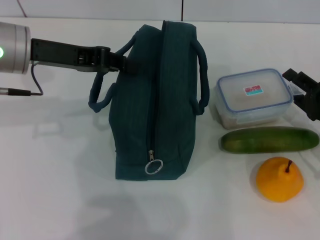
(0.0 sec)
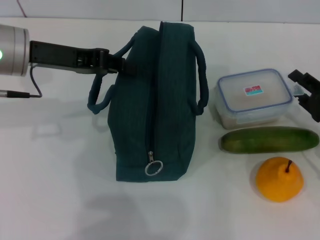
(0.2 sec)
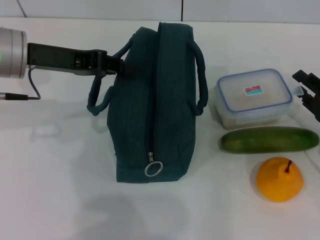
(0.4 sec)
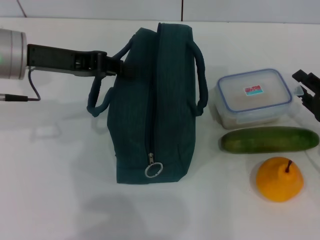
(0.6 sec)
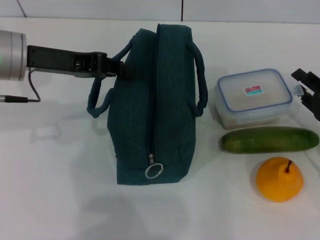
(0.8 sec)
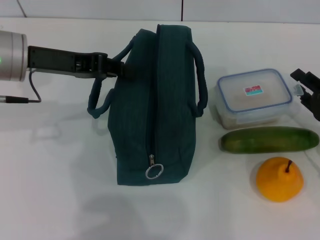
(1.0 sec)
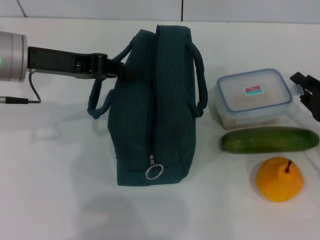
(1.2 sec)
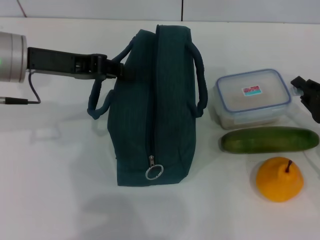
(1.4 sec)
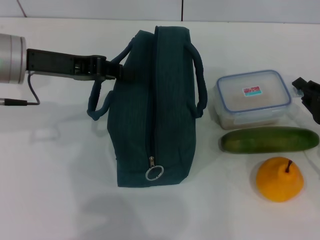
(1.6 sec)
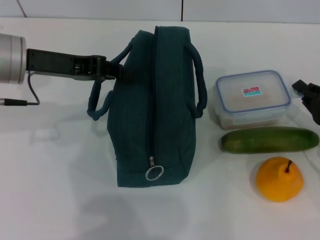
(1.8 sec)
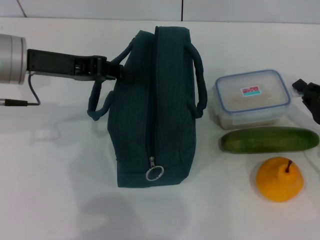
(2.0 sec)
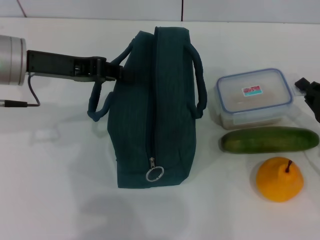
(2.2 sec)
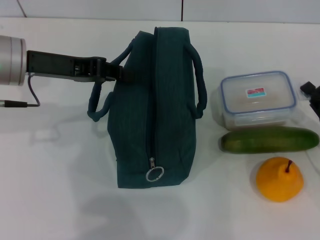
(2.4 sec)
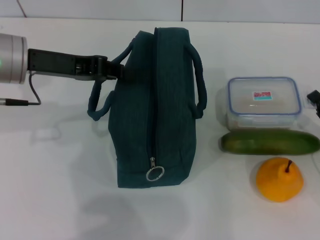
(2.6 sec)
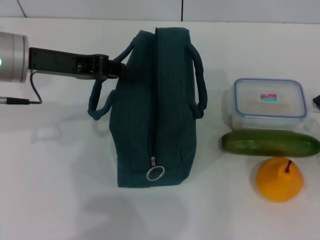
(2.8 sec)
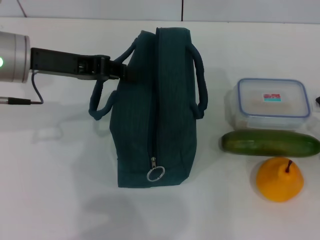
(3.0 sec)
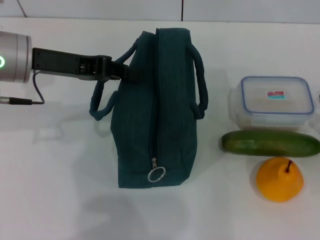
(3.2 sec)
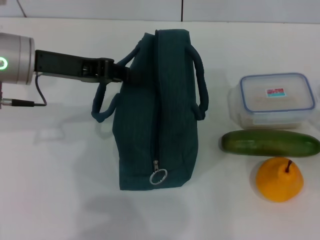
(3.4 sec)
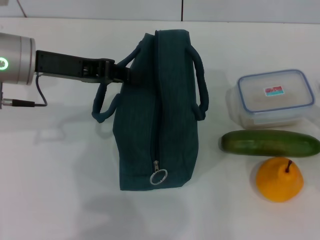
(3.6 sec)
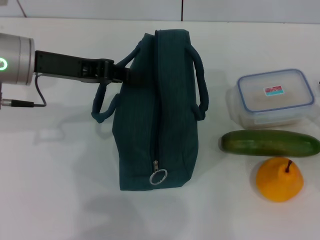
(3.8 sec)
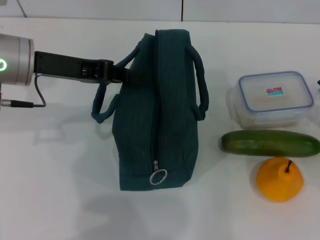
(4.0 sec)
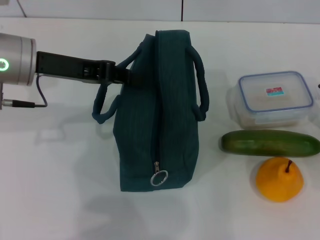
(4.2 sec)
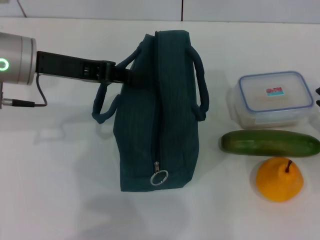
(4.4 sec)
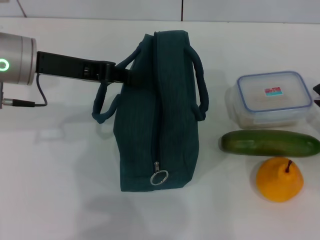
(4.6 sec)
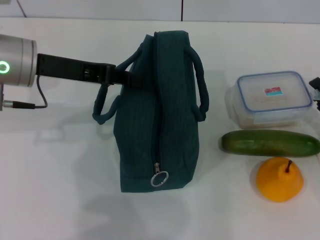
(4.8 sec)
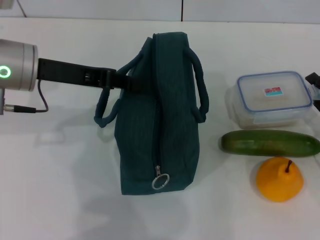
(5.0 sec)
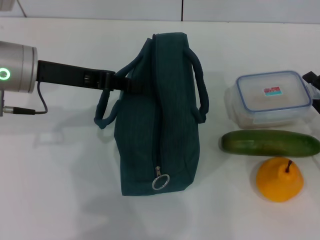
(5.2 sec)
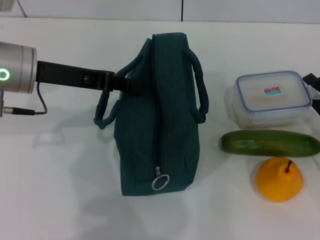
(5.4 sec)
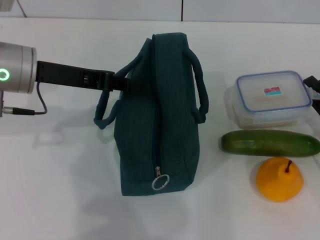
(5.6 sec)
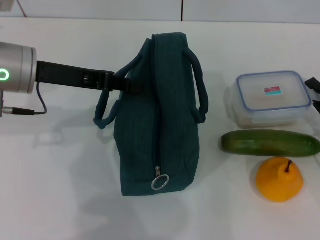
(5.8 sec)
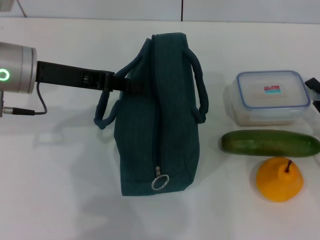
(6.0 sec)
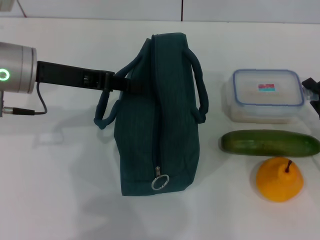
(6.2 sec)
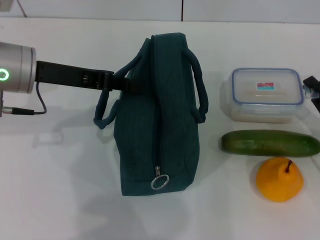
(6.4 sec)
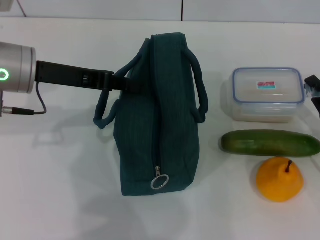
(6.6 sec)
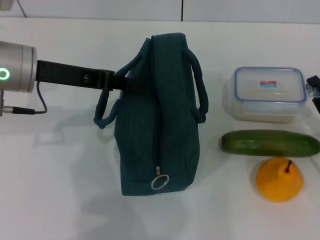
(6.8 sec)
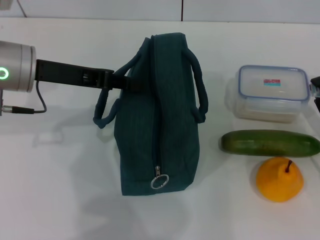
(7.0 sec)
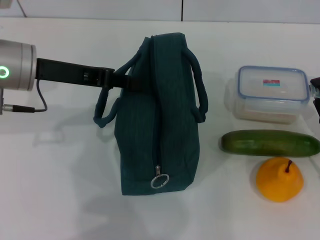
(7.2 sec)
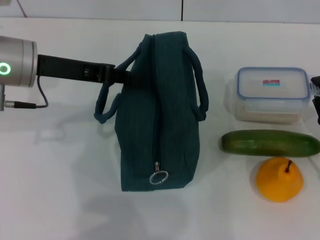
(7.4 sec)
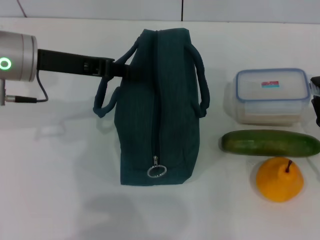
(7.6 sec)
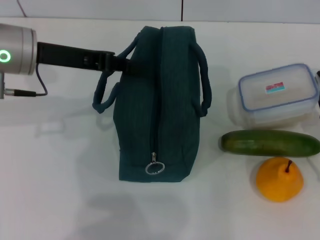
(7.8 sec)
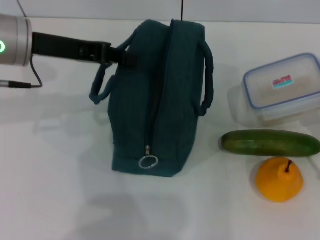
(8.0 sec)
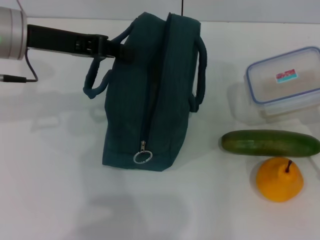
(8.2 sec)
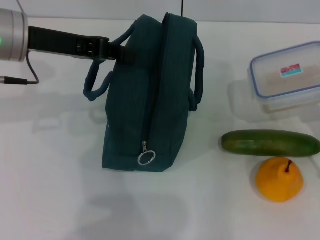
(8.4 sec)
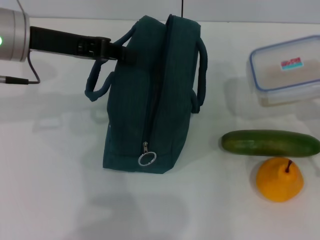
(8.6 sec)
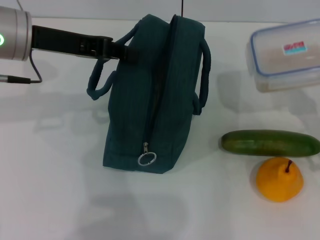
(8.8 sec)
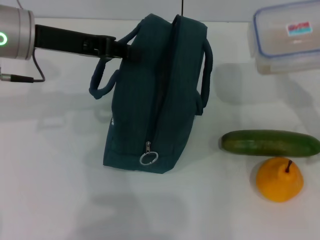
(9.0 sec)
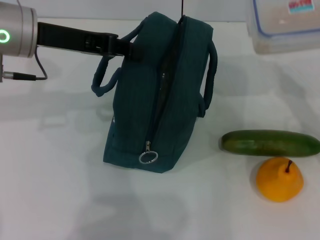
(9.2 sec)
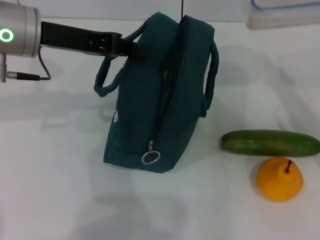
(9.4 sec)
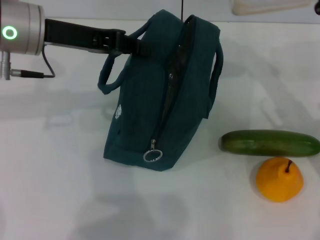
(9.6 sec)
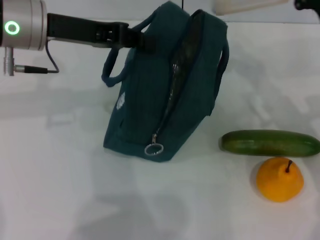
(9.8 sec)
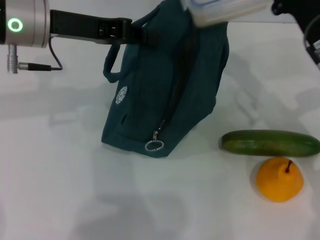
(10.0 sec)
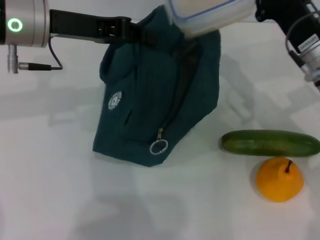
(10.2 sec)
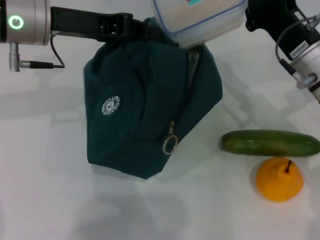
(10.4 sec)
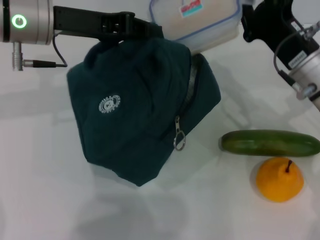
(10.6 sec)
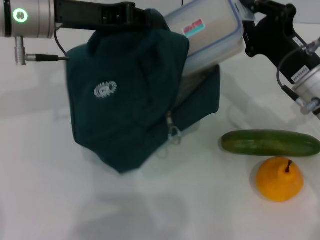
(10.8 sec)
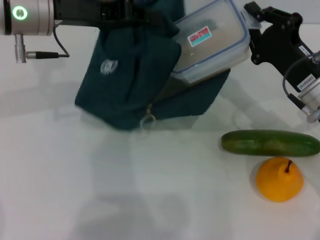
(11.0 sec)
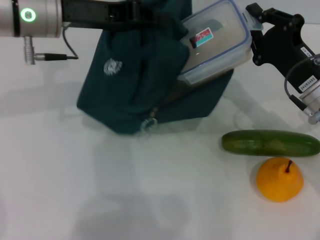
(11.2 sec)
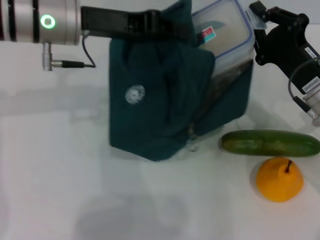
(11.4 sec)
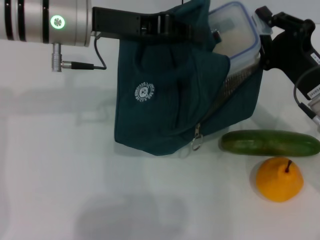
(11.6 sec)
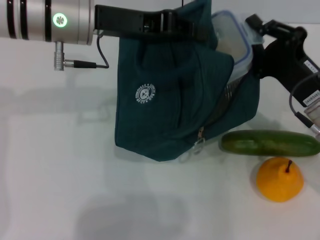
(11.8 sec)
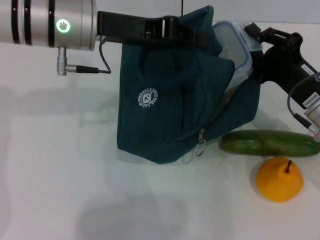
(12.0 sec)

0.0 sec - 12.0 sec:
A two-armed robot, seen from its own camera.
Step, 0.0 sec - 7.4 sec: Pick up the lunch box with your right hand.
0.0 sec - 1.6 sec: Both grippers stay about where they are.
1.6 sec - 3.0 sec: The grippers make only small movements.
3.0 sec - 4.4 sec: The right gripper opens up.
4.4 sec - 6.0 sec: There are only small adjustments of the grippers.
7.6 sec - 9.0 sec: The right gripper shifts roughly 5 cm upward.
9.0 sec - 10.4 sec: The right gripper goes roughly 10 cm to the left and forward.
10.4 sec - 12.0 sec: The left gripper moves some 5 cm; the right gripper changes place by roughly 5 cm.

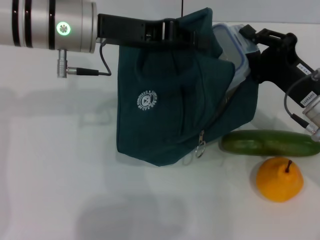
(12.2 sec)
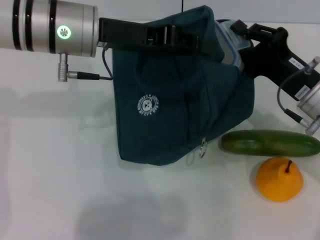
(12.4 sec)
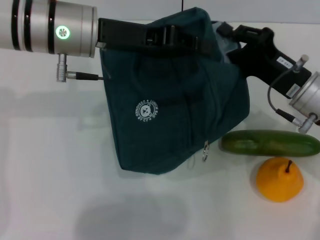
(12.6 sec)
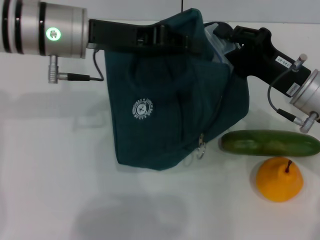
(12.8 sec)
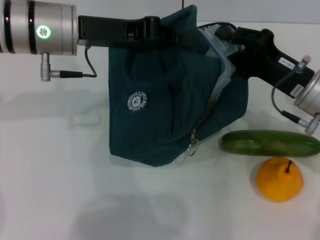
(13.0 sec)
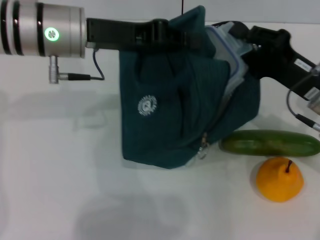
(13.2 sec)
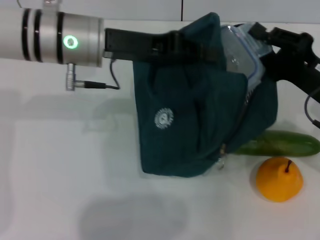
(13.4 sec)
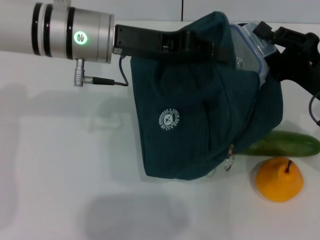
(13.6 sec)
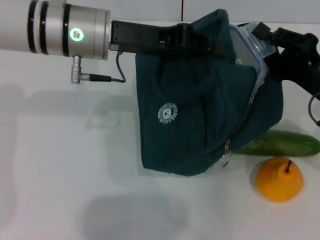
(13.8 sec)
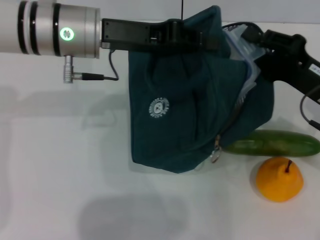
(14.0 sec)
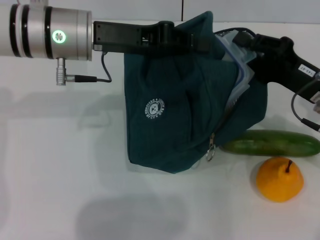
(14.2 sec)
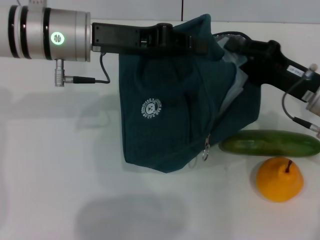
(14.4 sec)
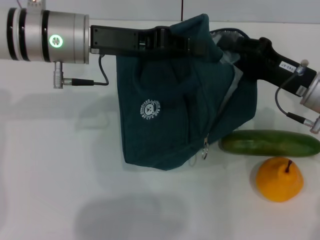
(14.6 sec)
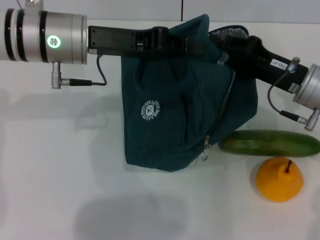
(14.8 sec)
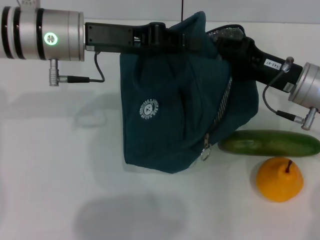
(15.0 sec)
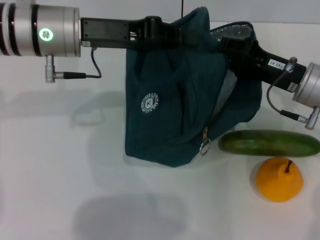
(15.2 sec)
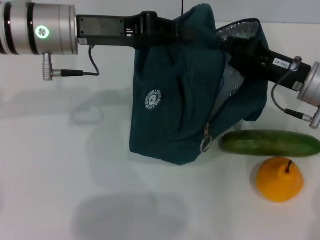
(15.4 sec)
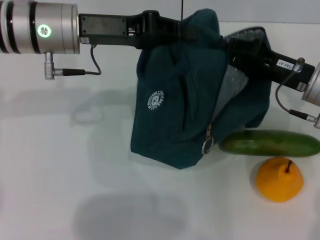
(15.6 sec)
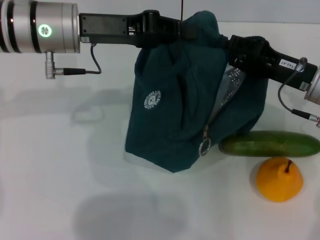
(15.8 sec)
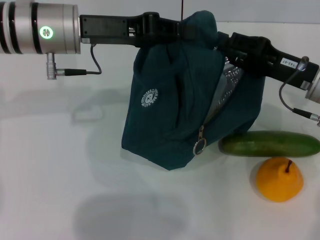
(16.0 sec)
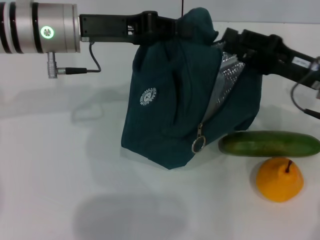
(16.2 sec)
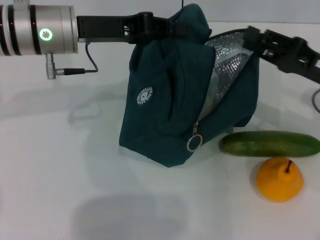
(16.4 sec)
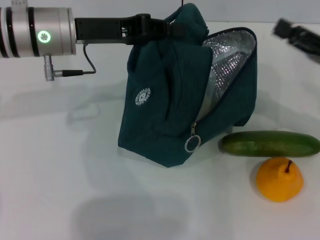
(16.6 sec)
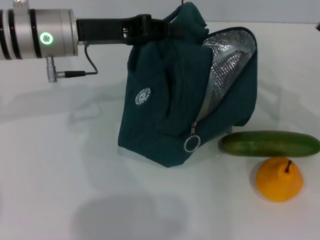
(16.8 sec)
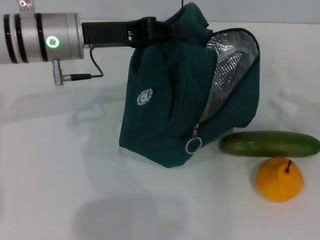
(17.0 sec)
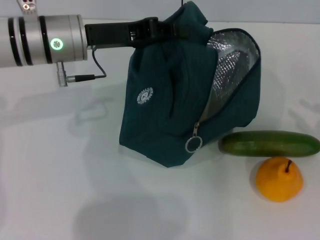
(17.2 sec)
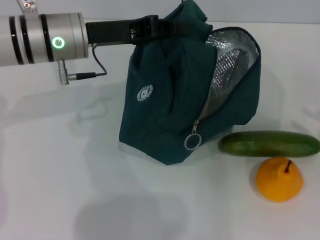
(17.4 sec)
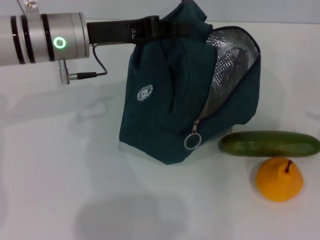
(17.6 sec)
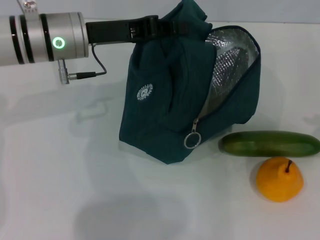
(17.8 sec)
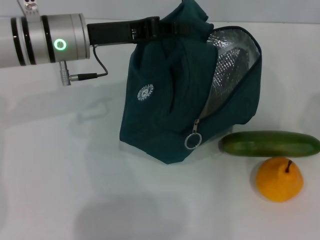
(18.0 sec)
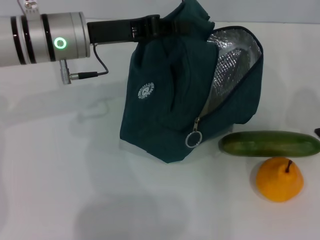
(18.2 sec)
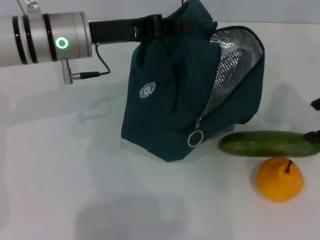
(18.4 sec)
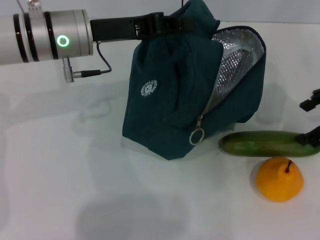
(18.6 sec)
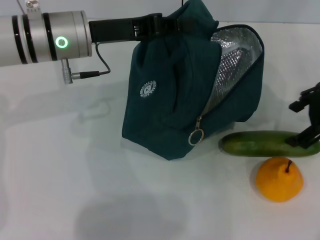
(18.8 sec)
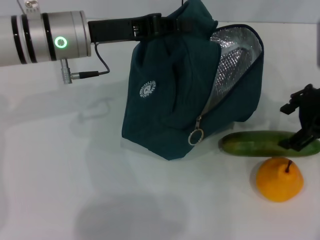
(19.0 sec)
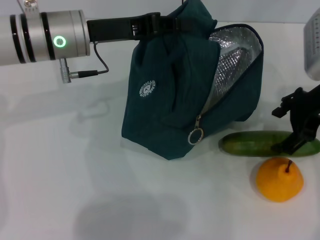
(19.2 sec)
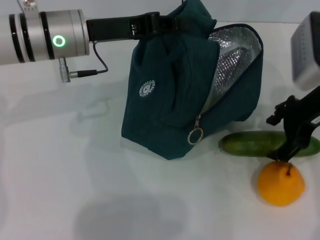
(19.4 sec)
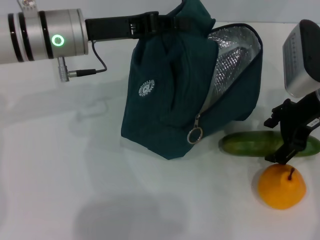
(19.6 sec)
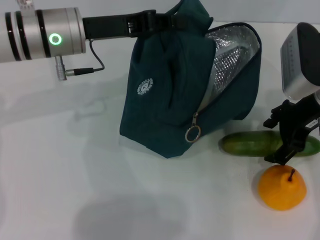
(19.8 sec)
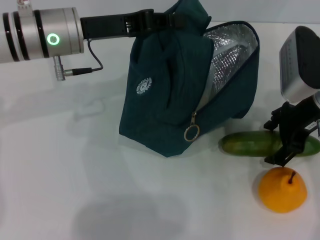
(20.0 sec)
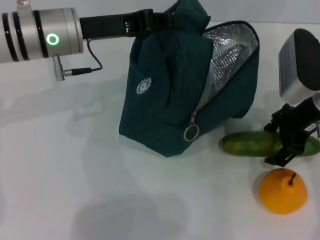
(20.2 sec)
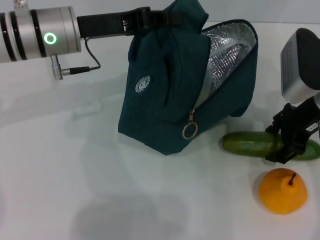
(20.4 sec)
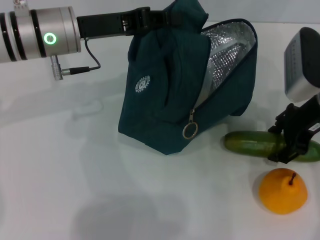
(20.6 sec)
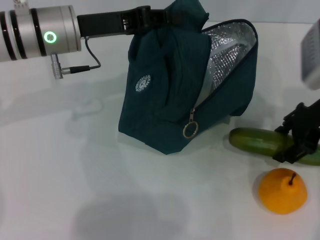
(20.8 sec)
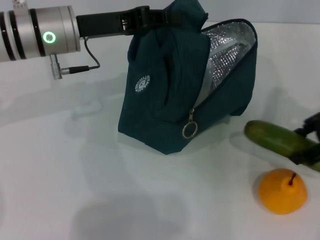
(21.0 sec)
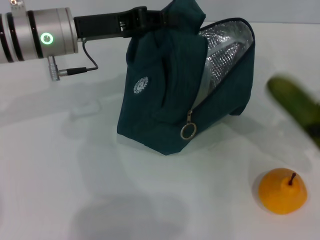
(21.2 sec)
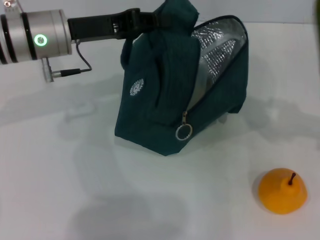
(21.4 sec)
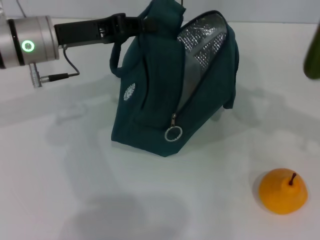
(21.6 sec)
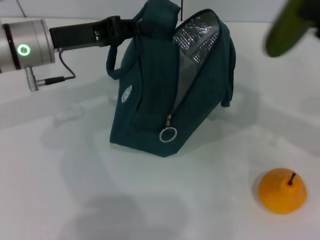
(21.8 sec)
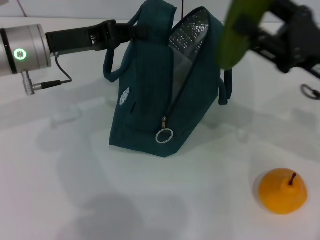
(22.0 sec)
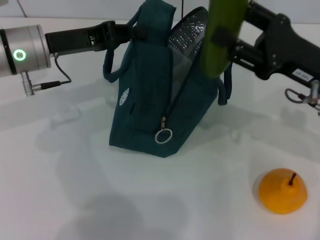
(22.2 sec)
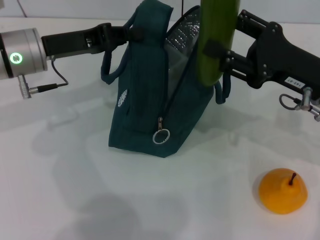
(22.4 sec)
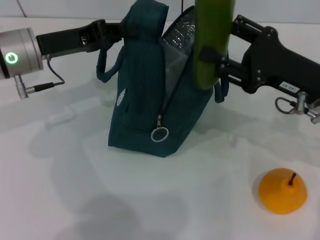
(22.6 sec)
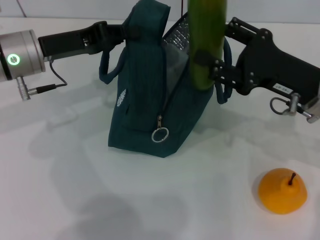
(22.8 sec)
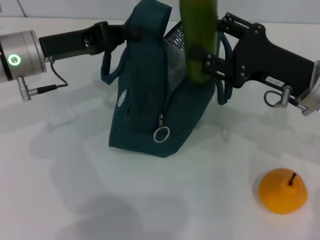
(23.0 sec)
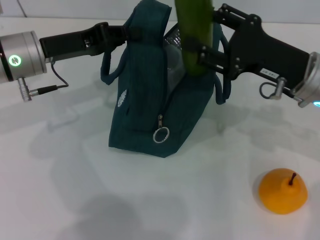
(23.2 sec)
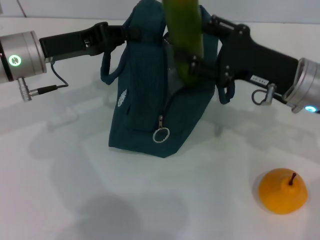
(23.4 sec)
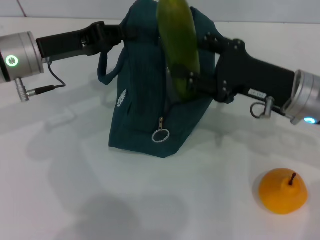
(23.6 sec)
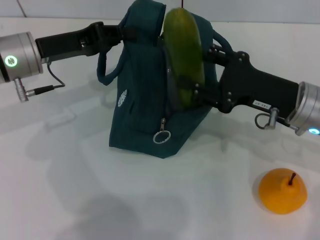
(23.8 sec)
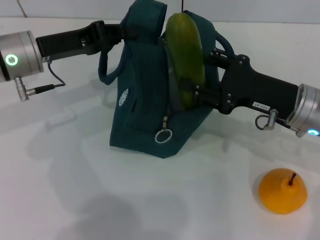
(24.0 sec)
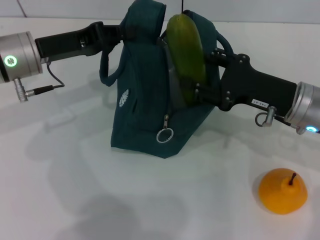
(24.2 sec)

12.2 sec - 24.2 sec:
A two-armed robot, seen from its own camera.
Step, 12.2 sec - 16.4 sec: Place the lunch box into the lunch bag with your right hand.
Step, 16.6 sec - 20.4 sec: Pick up the cucumber with your right hand.
13.8 sec - 15.2 sec: The right gripper shifts by about 5 cm.
15.2 sec - 16.6 sec: The right gripper travels to the right by about 10 cm.
16.6 sec - 18.2 sec: The right gripper moves upward, about 10 cm, reaches approximately 10 cm to the right, then returns, and opens its fingers.
18.2 sec - 19.8 sec: The right gripper travels to the left by some 10 cm.
19.8 sec - 21.2 sec: The right gripper goes approximately 15 cm to the right.
21.2 sec - 22.6 sec: The right gripper heads to the left and downward, covering roughly 15 cm; the left gripper changes place by approximately 5 cm.
22.6 sec - 24.2 sec: The grippers stay close to where they were, moving slightly.
